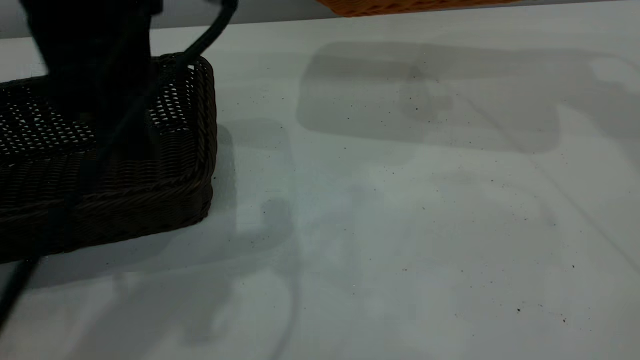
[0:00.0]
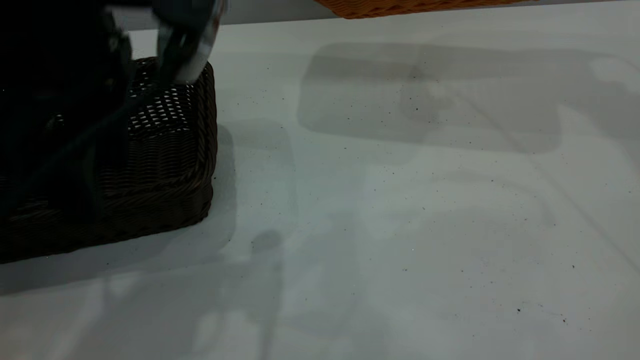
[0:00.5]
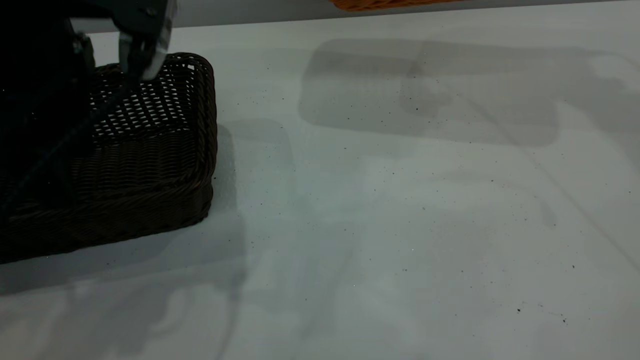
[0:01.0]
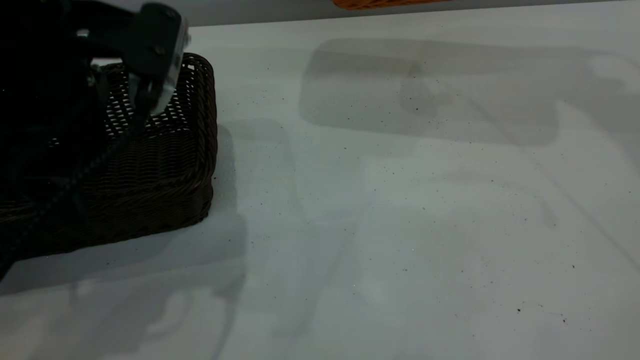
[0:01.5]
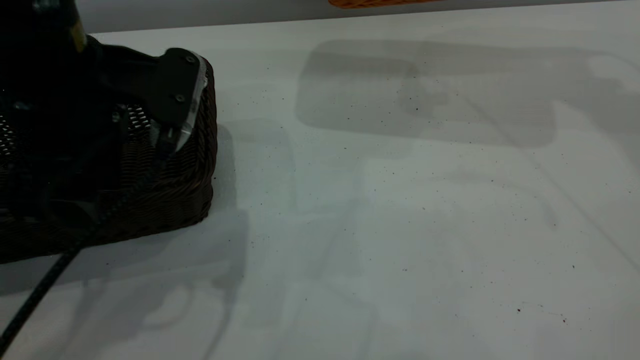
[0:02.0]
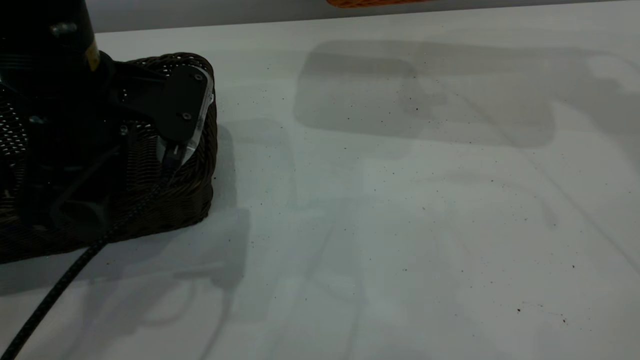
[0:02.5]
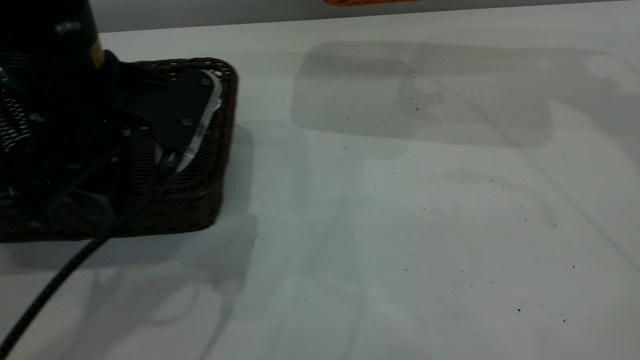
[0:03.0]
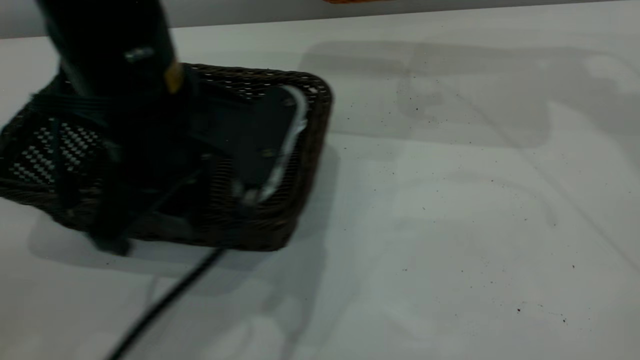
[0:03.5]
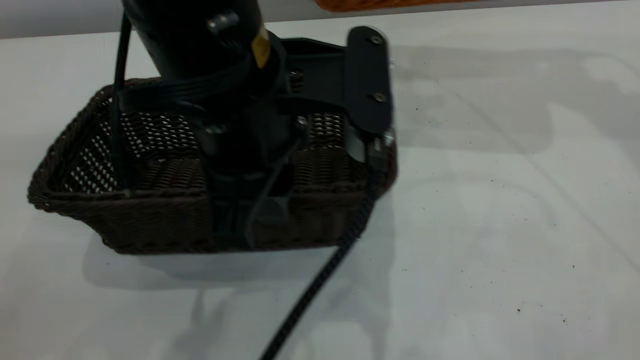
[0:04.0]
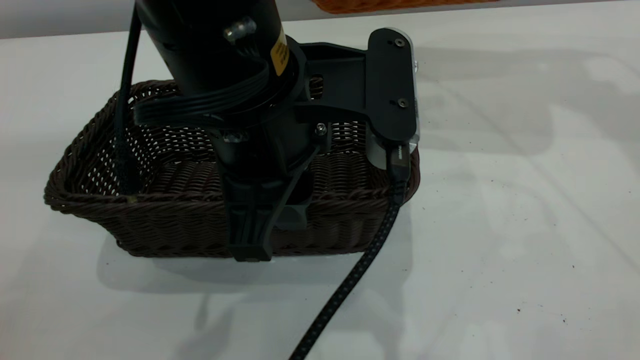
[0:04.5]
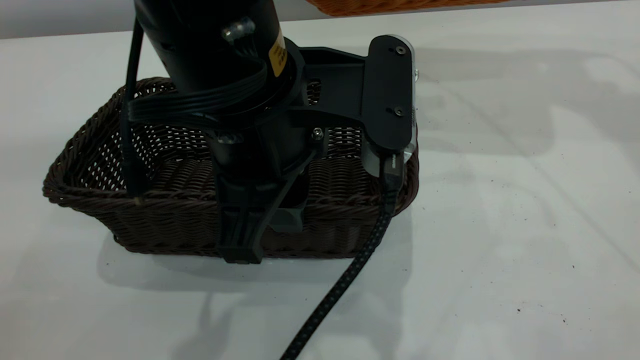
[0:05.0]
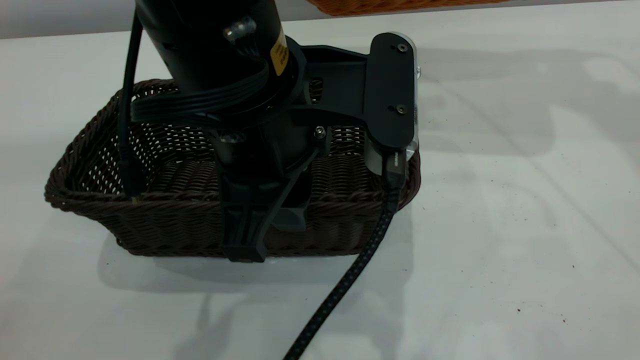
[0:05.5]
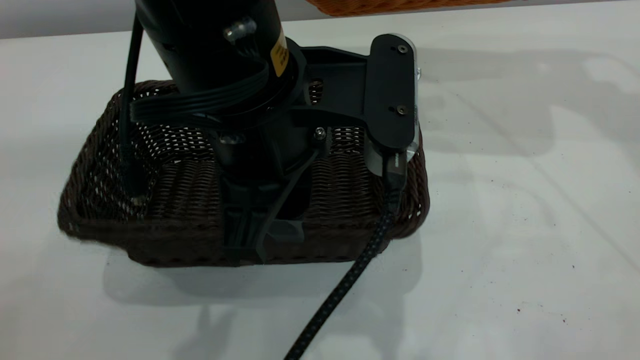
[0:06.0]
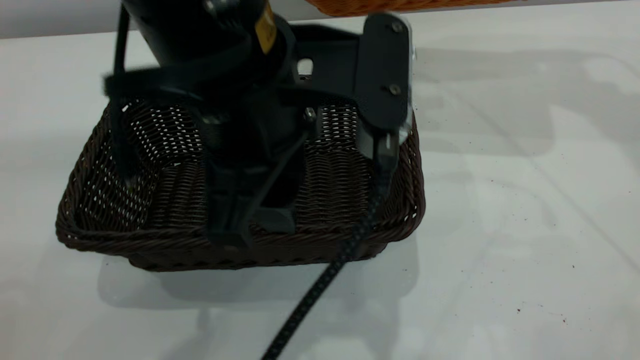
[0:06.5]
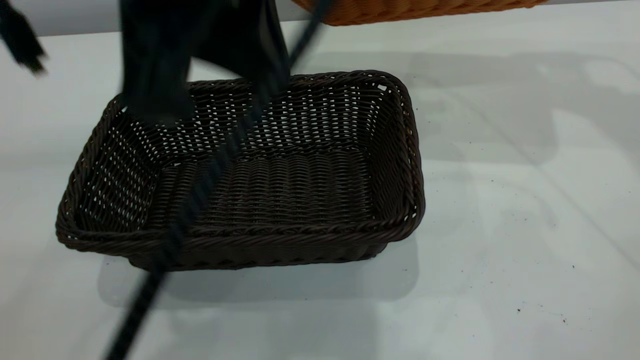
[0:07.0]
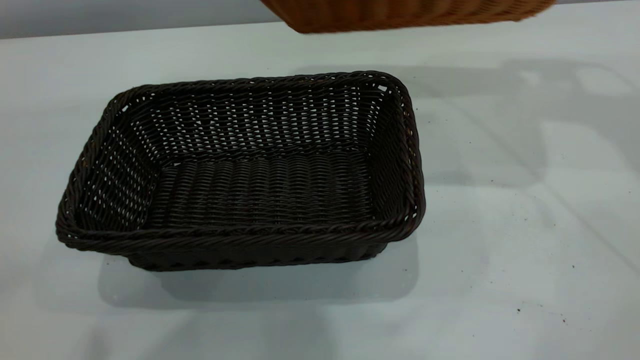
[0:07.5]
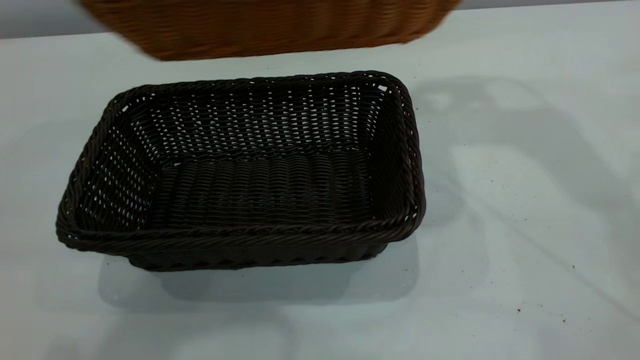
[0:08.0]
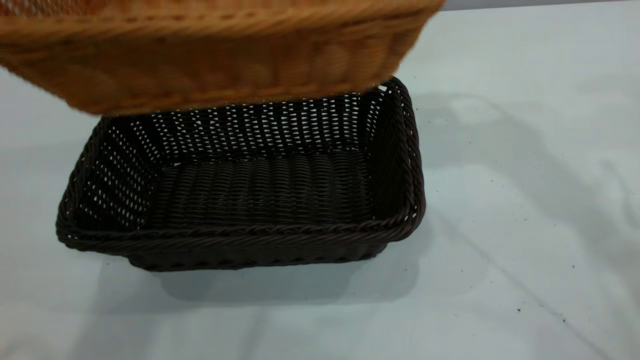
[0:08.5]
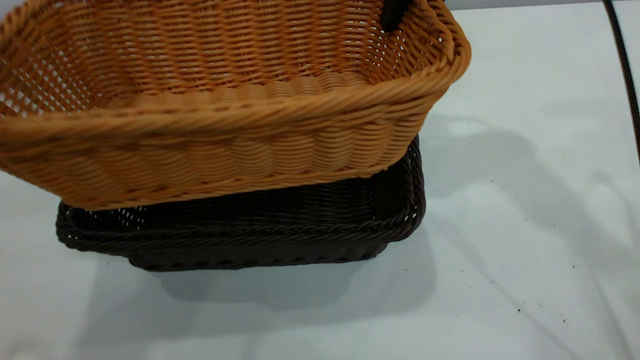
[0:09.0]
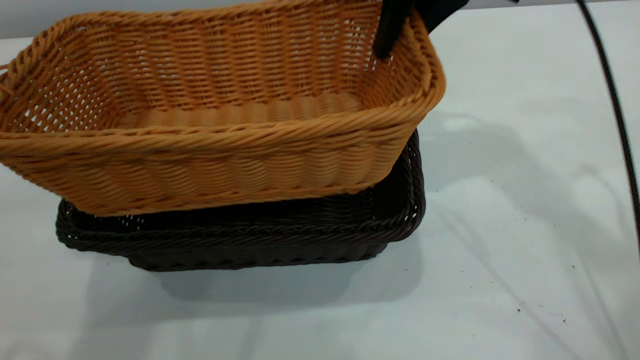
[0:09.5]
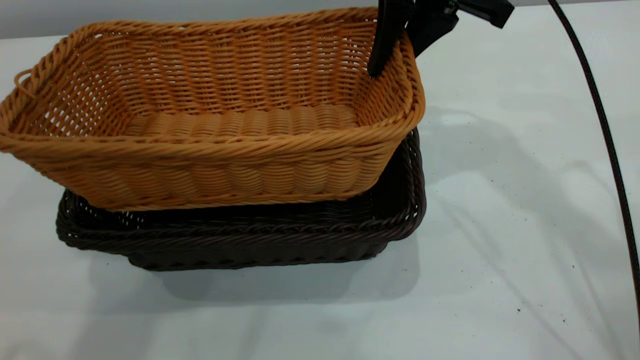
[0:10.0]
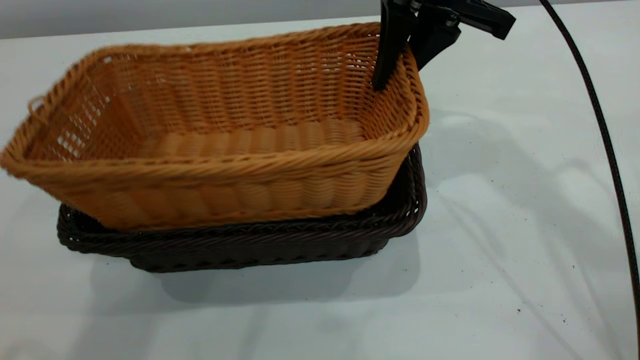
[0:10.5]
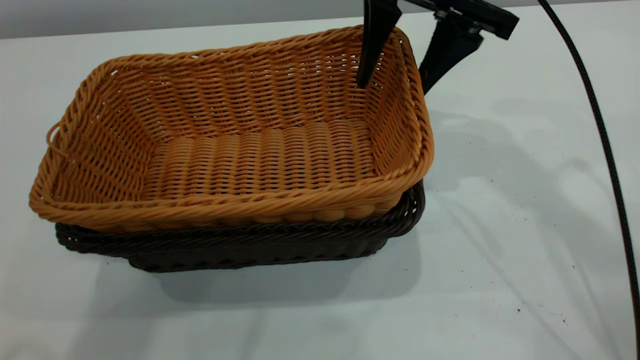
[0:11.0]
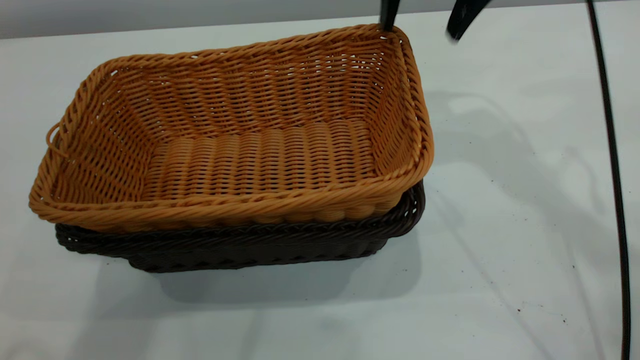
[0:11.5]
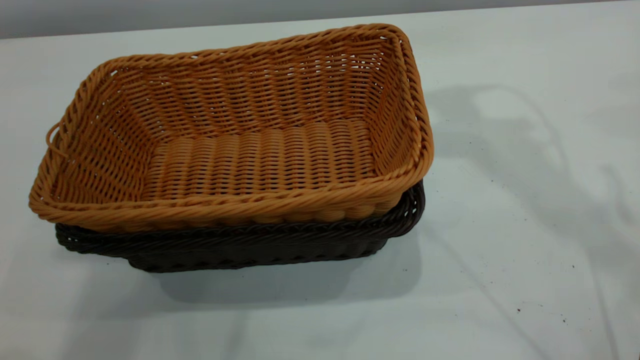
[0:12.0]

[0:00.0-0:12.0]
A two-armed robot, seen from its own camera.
Task of the whole recording: the left gripper grasp the black basket and place it in the center of the table, the right gripper grasp the brown basket and place it inside the black one.
Step, 0:00.0 to 0:07.0: Move the dark basket to the center of view.
Step, 0:07.5 to 0:11.5: Place the light basket on the dark basket.
0:00.0 to 0:02.0: The left gripper travels downward by some 10 cm.
0:02.0 to 0:04.0: The left gripper is displaced to the right by approximately 10 cm, and closes up.
0:04.0 to 0:06.0: Neither gripper changes place.
0:06.0 to 0:08.0: The left gripper heads upward and to the left, covering roughly 25 cm, and closes; the right gripper moves to the left, about 10 cm.
0:08.0 to 0:10.0: The right gripper travels downward by approximately 10 cm.
0:10.0 to 0:12.0: The right gripper is displaced upward by approximately 15 cm, and opens, then closes again.
